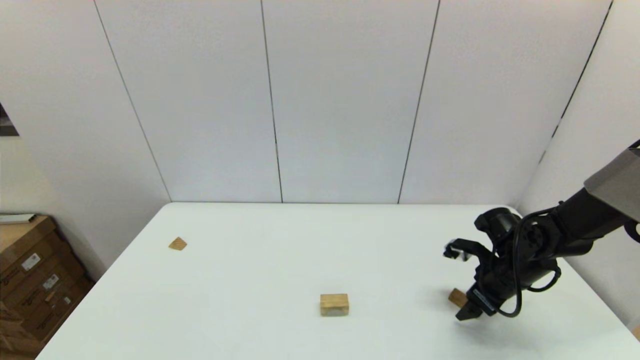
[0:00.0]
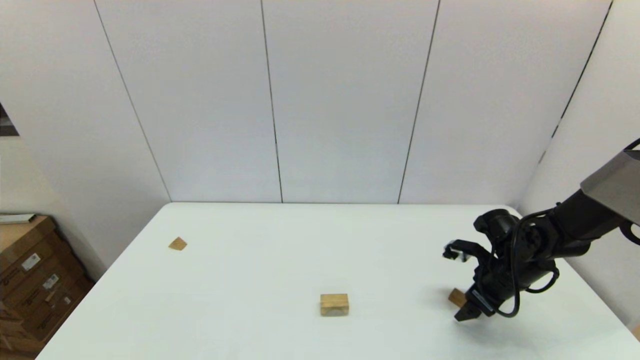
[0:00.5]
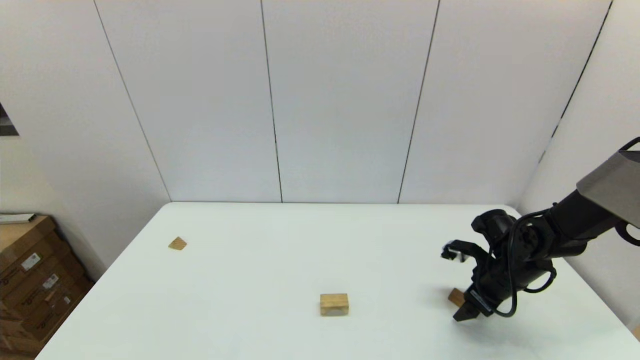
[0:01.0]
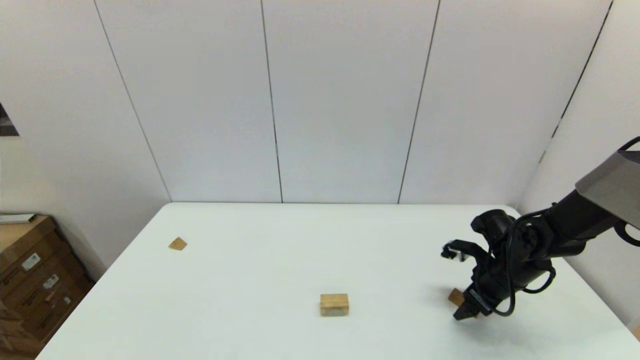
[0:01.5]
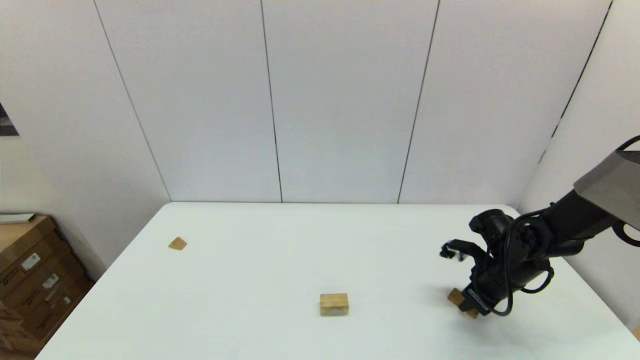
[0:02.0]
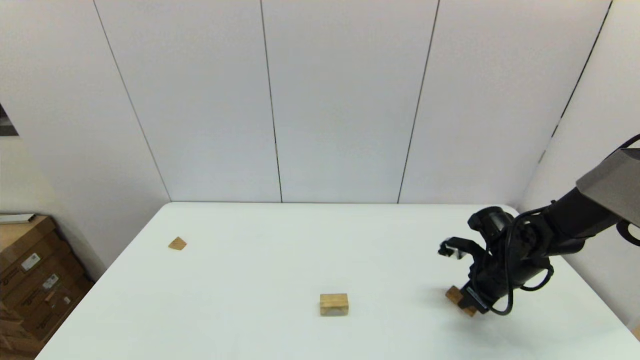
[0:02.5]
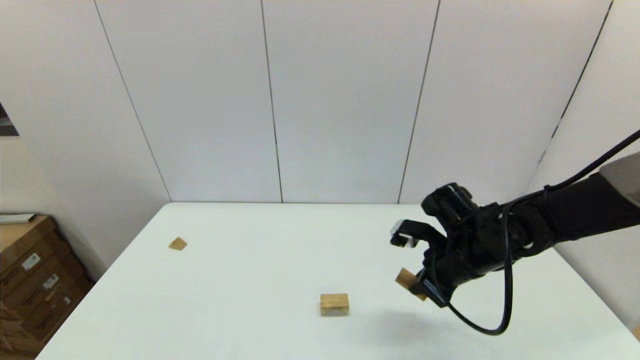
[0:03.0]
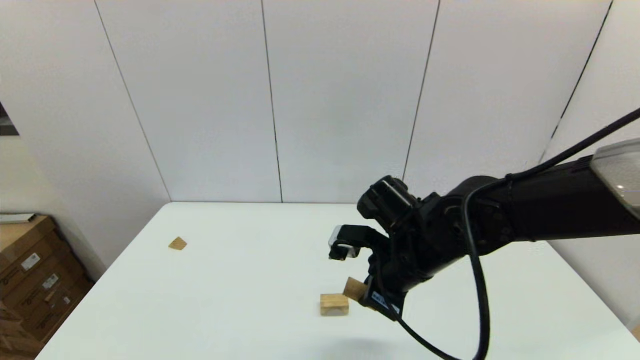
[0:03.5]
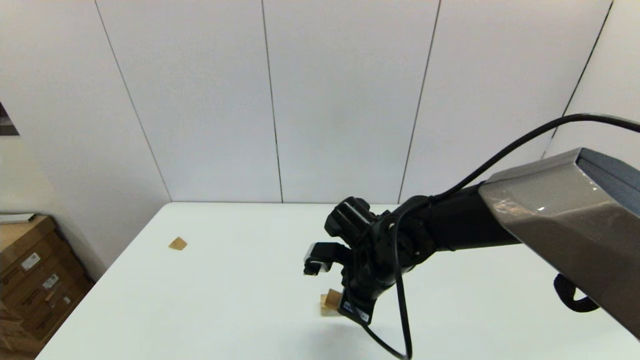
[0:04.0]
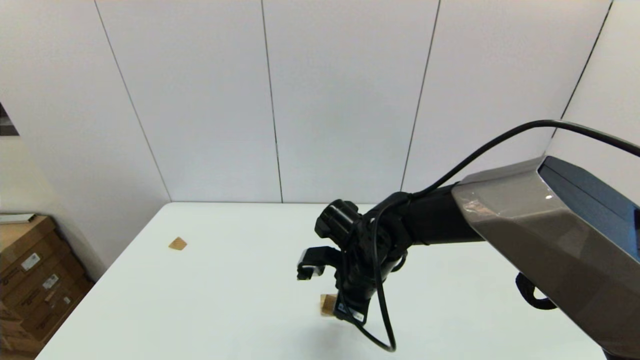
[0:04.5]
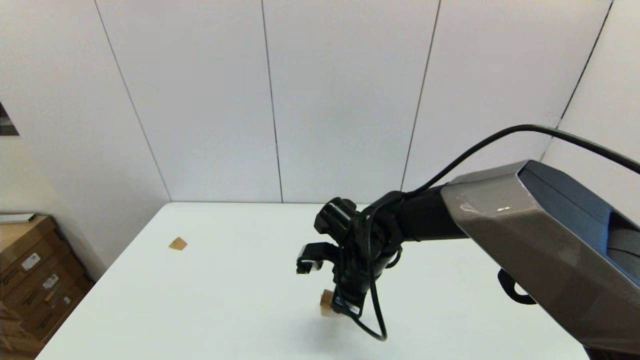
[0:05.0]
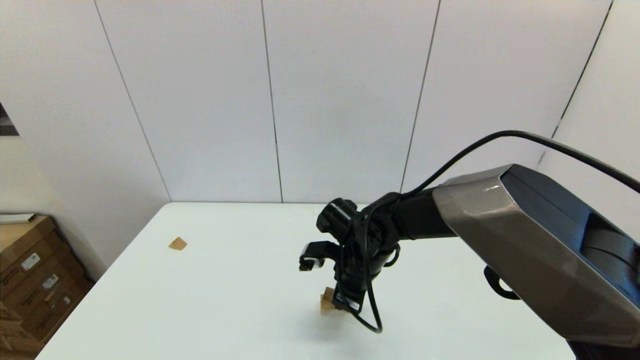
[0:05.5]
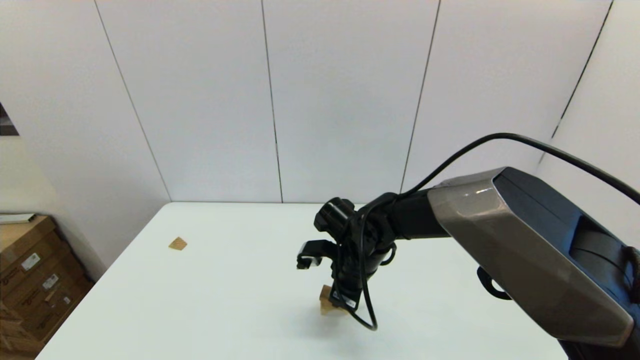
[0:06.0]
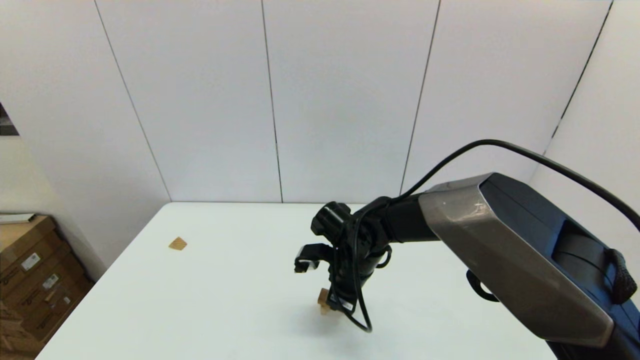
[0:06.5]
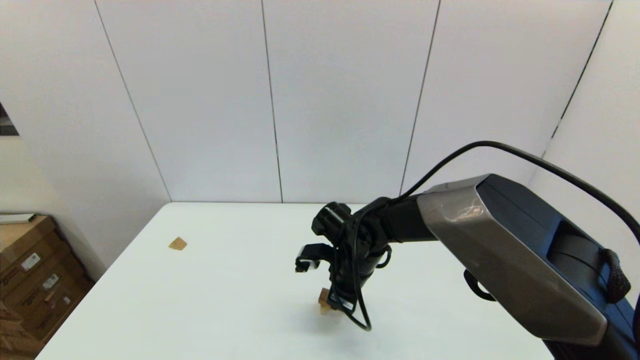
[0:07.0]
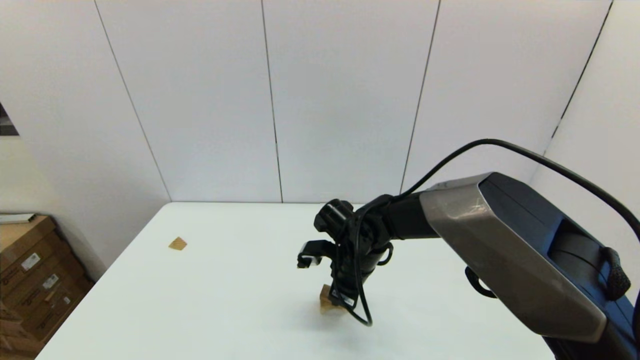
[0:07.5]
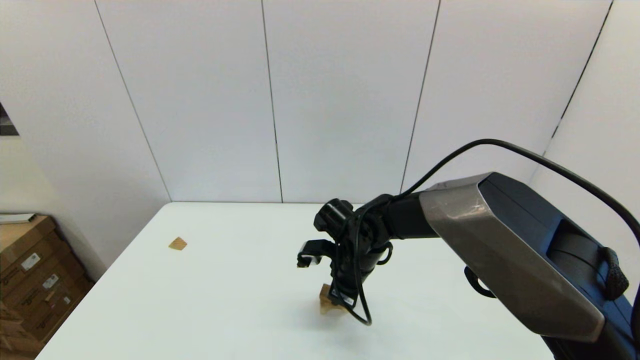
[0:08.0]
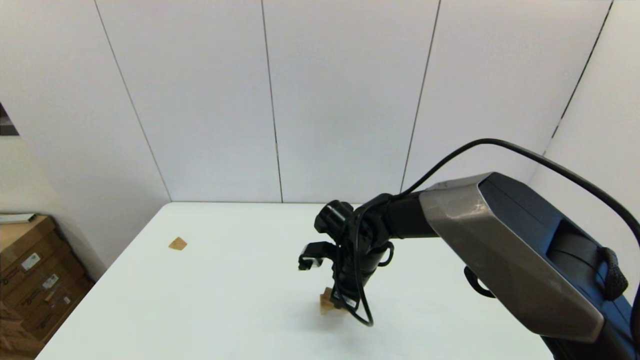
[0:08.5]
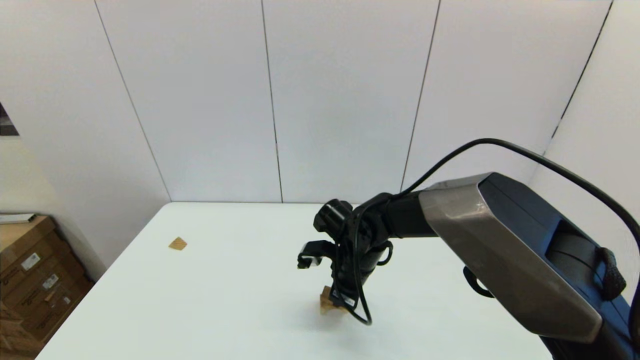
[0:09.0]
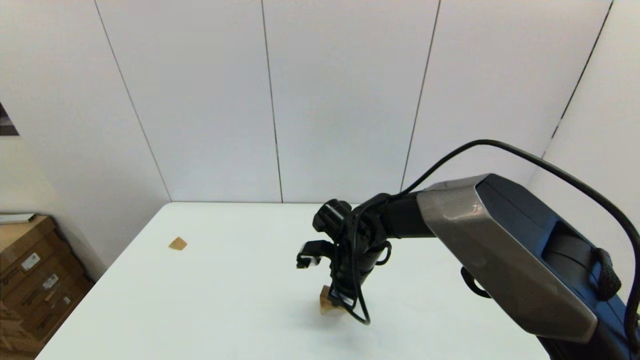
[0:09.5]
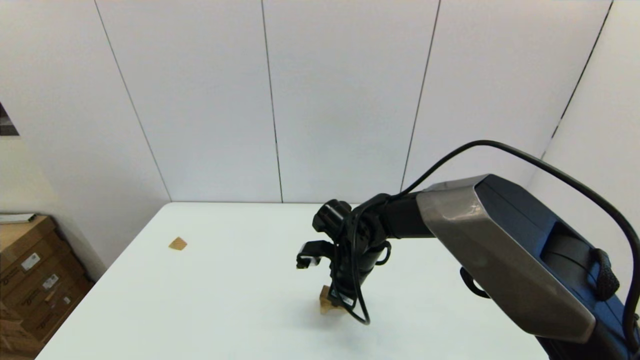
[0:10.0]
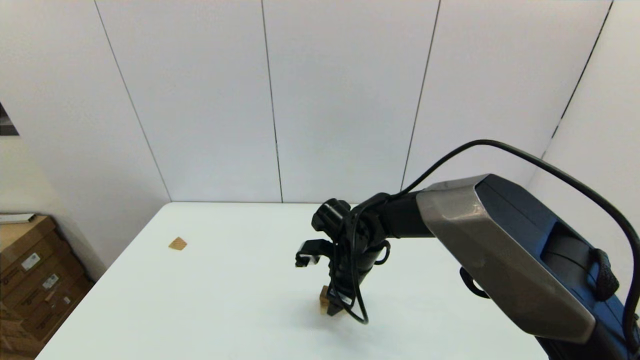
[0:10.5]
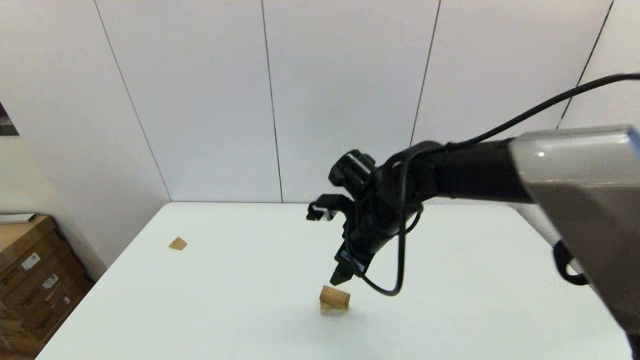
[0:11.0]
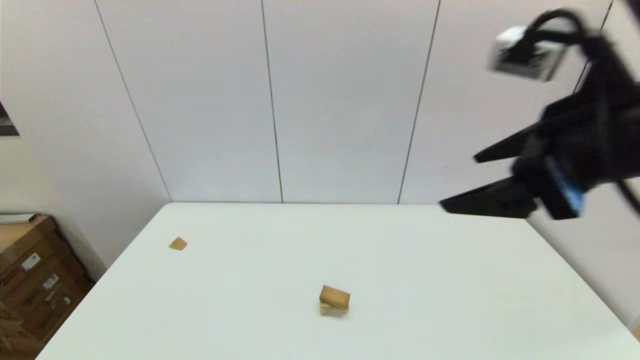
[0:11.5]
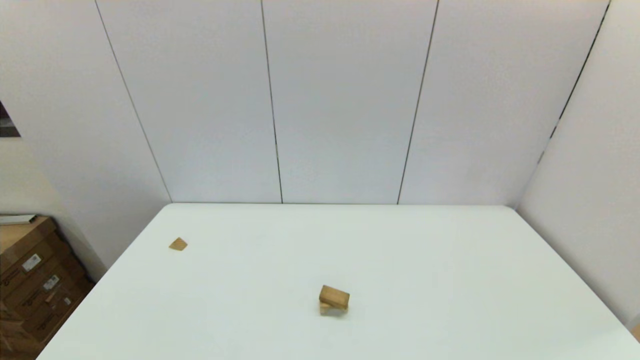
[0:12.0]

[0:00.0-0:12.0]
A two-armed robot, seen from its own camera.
Task of the whole recording: place the arched building blocks in the center of the table, set up the rectangular building blocks, and then set up the triangular building blocks.
Step, 0:00.0 to 0:02.0: Grasp the box-shaped block with the right gripper.
Step, 0:02.5 to 0:10.0: Place the box-shaped block onto the arch-shaped block with the right gripper.
0:00.0 to 0:02.0: The right gripper closes up.
0:02.0 to 0:04.0: The right gripper heads to the left, covering roughly 25 cm.
0:04.0 to 0:06.0: The right gripper ends up approximately 5 cm from where it was.
0:06.0 to 0:08.0: The grippers stay close to where they were, moving slightly.
0:08.0 to 0:10.0: Both grippers stay about where they are.
0:10.0 to 0:12.0: The right gripper is displaced backward, upward and to the right by some 50 cm, and opens its fingers.

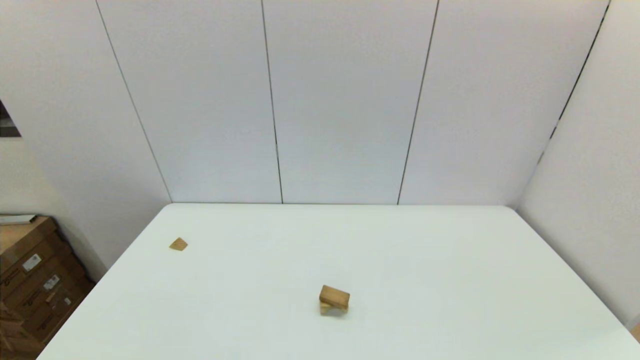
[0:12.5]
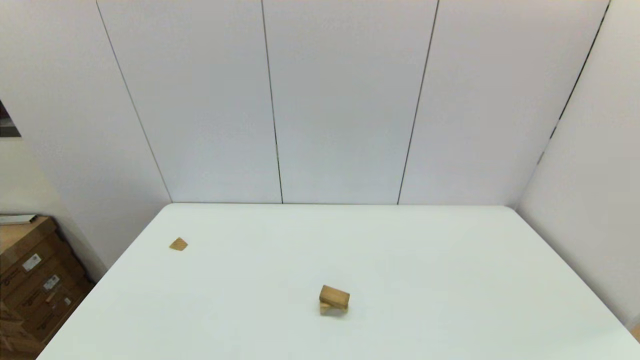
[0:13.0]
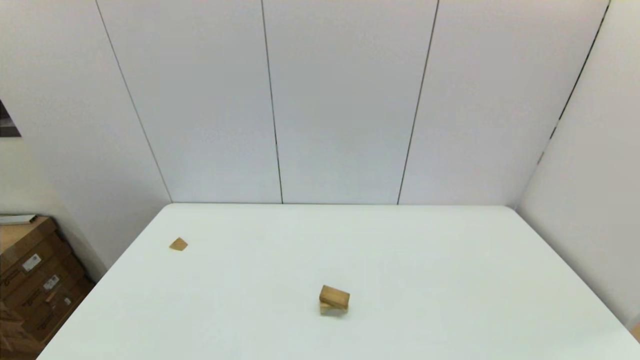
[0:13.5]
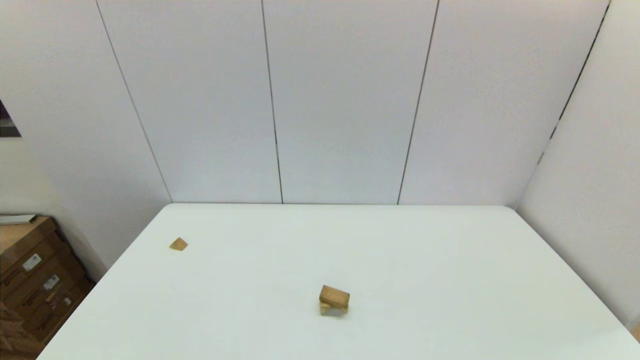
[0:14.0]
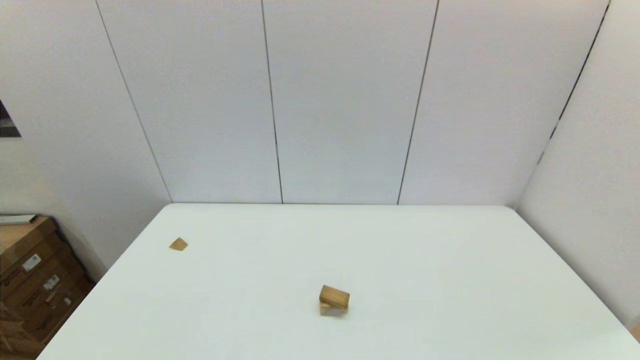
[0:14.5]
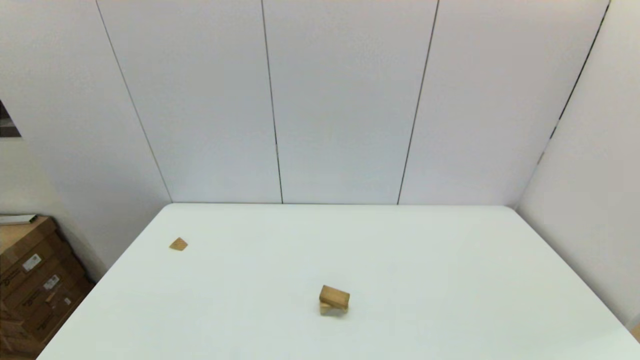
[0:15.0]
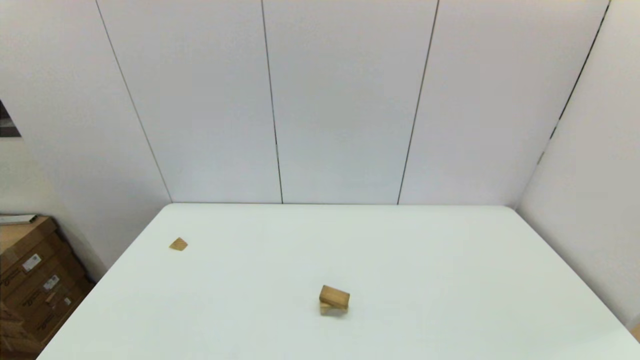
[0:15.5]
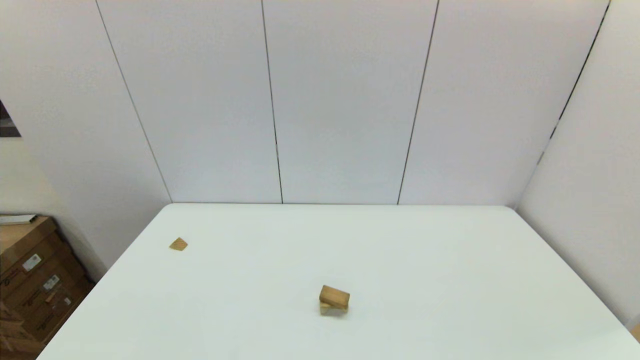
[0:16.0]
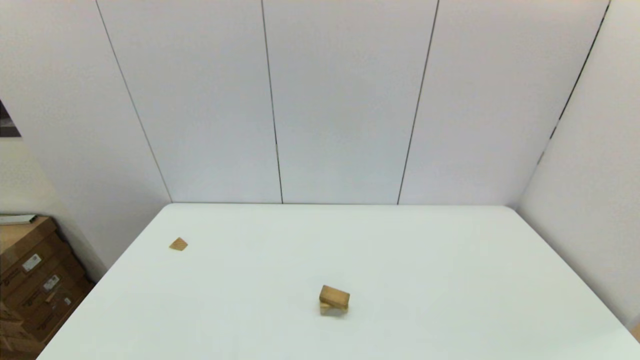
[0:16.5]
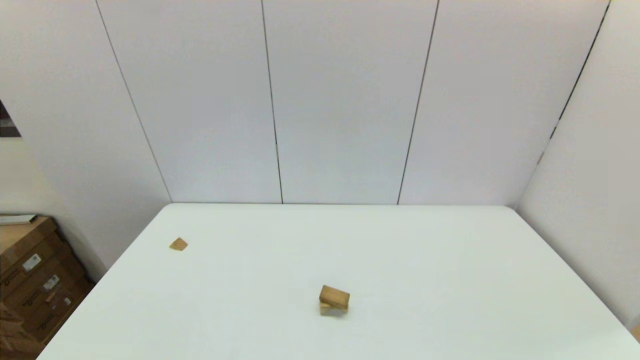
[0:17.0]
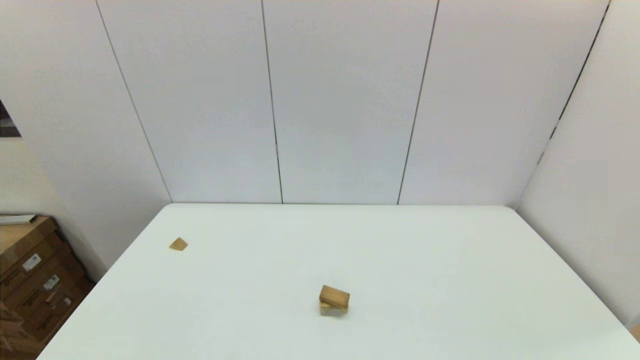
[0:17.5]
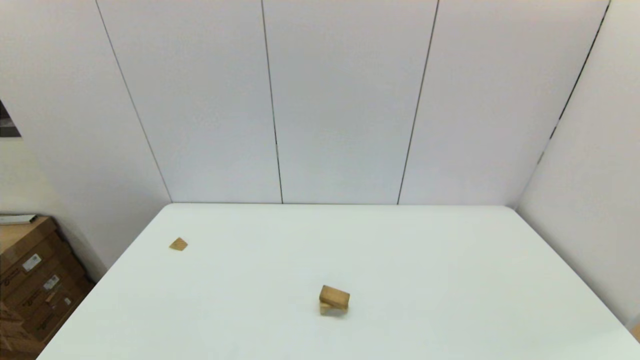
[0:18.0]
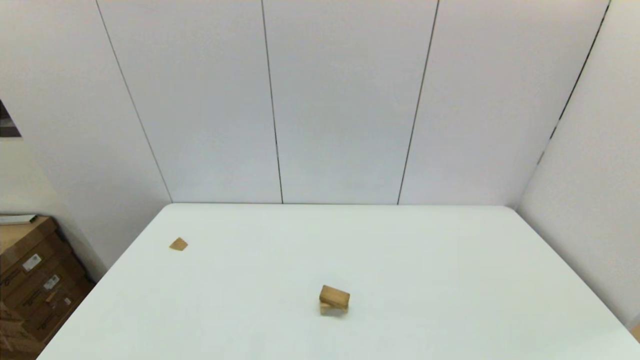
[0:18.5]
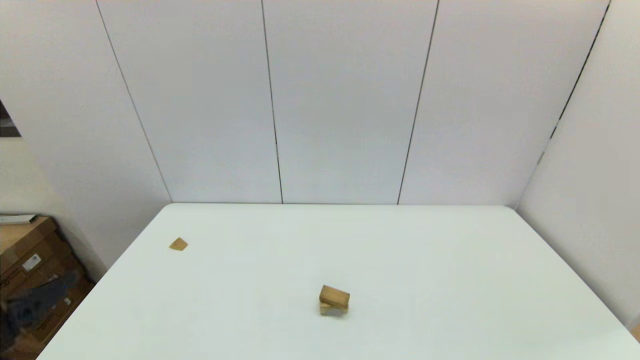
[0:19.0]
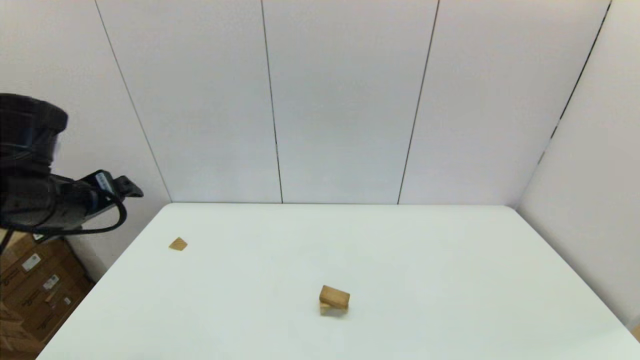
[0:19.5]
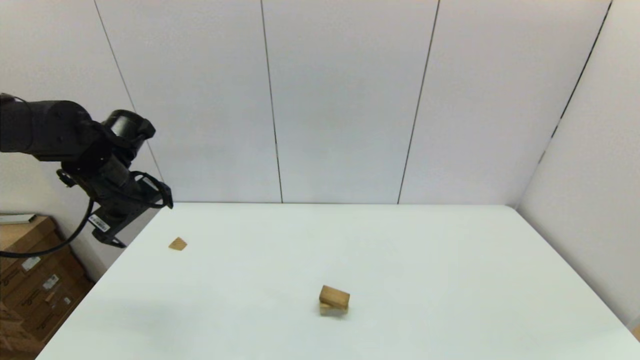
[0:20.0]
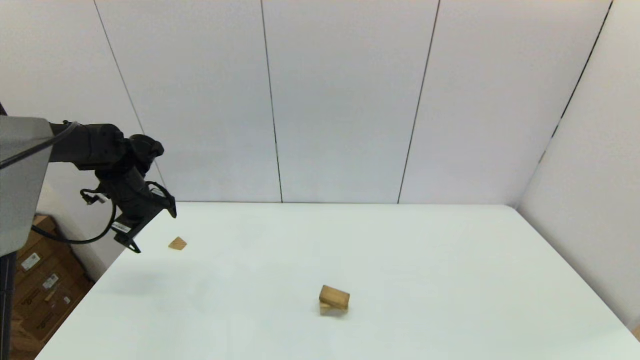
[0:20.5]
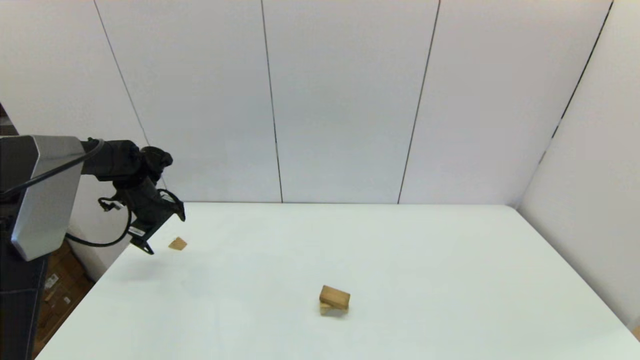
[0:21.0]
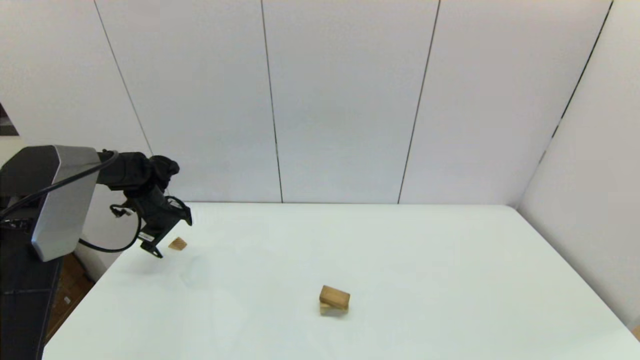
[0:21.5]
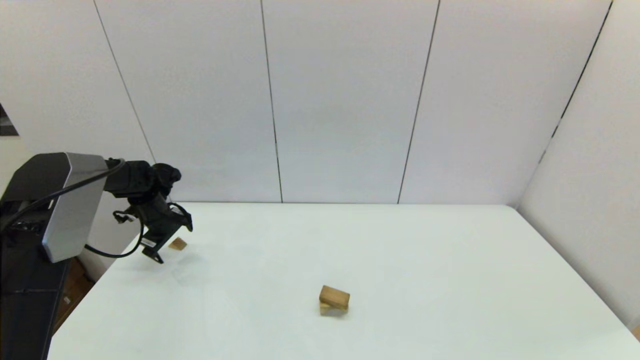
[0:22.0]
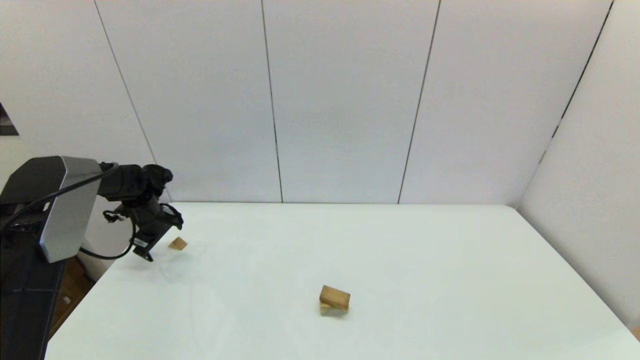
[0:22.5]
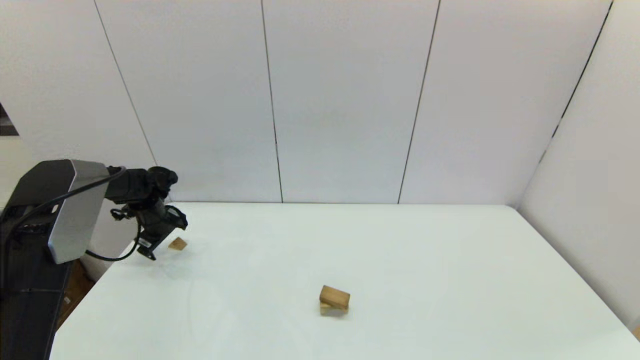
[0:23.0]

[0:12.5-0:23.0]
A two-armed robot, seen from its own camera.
Task of the whole recording: place the arched building blocks in the center of the table, set up the rectangular building blocks, and then set up the triangular building blocks.
0:14.5 to 0:16.5: Neither gripper changes place.
0:19.0 to 0:21.0: The left gripper heads forward, covering approximately 35 cm.
0:21.0 to 0:23.0: The left gripper shifts about 5 cm downward.
